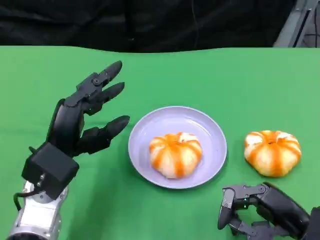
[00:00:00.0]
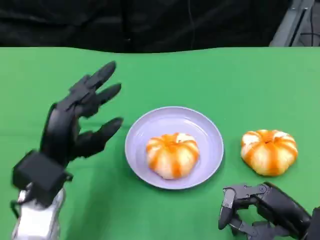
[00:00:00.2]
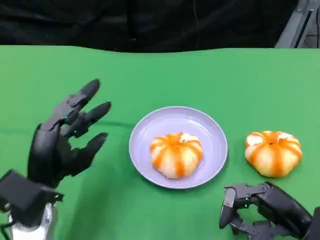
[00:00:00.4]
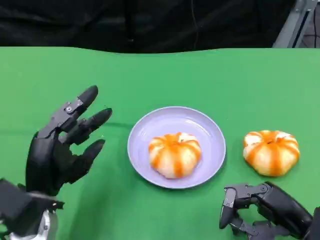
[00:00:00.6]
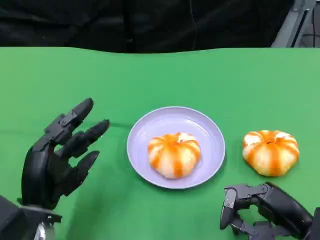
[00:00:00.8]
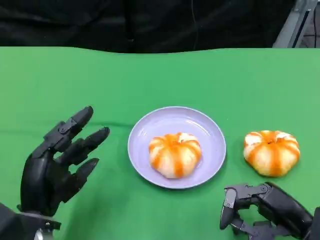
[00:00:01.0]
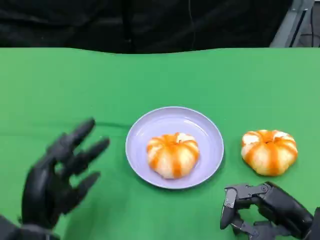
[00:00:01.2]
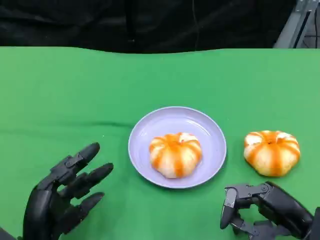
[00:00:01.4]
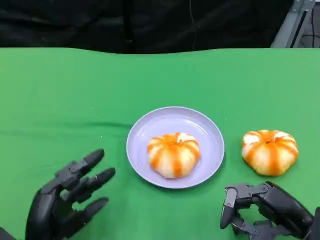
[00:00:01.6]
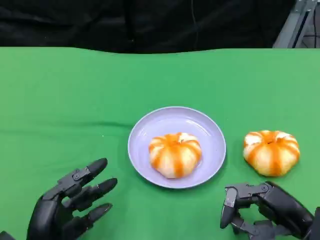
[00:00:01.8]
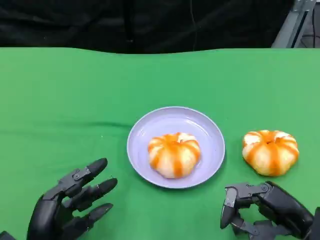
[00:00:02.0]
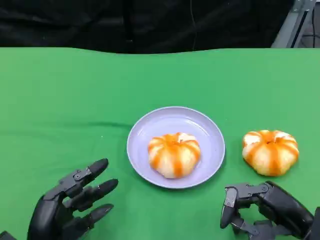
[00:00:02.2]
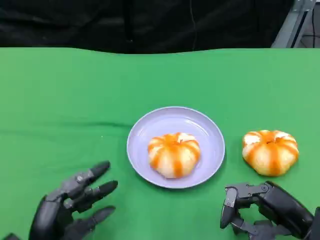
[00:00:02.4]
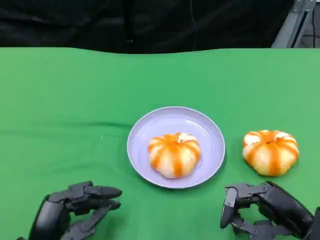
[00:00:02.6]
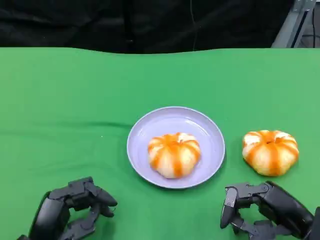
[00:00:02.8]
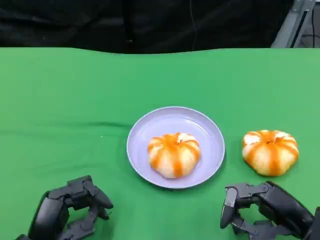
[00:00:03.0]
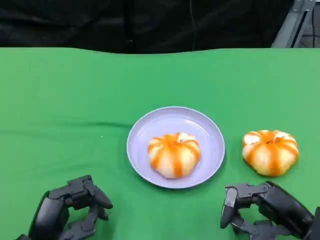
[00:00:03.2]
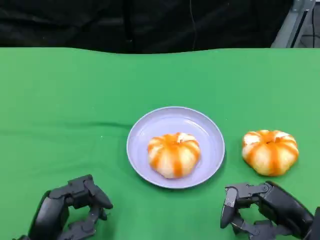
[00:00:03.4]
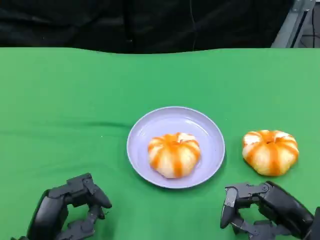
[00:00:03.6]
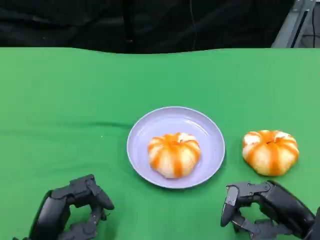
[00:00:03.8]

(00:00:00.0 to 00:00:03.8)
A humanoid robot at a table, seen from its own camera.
Task of the whole recording: Grasp the bread from the table and place it into the plate.
00:00:00.0 - 00:00:01.2: The left hand heads backward and downward, covering approximately 10 cm.
00:00:01.2 - 00:00:02.6: The hands stay close to where they were, moving slightly.
00:00:02.6 - 00:00:03.8: Neither hand changes place.

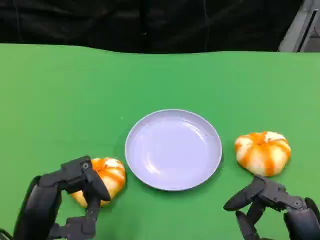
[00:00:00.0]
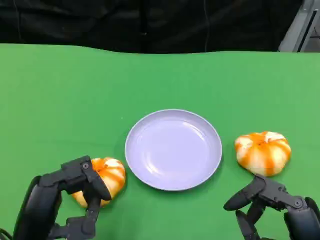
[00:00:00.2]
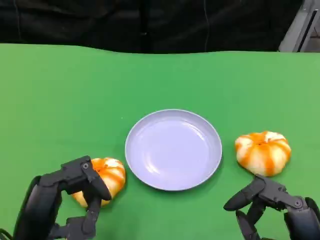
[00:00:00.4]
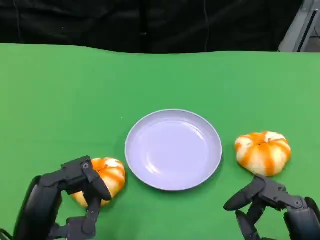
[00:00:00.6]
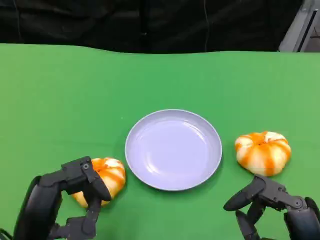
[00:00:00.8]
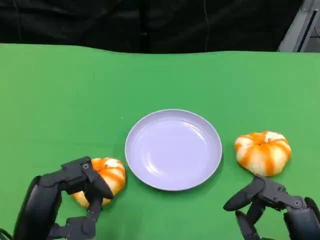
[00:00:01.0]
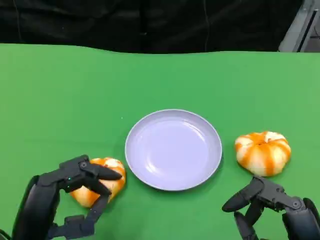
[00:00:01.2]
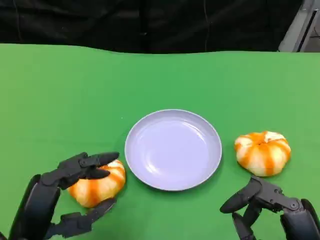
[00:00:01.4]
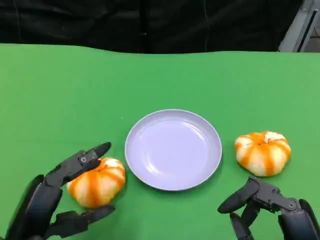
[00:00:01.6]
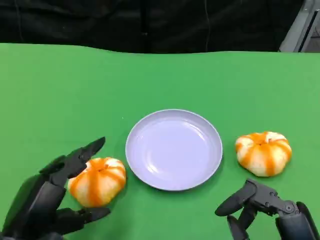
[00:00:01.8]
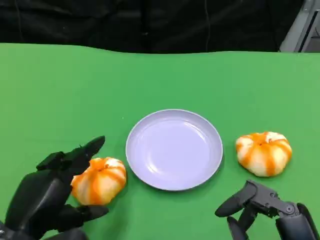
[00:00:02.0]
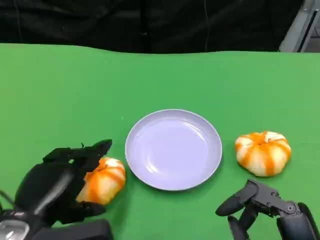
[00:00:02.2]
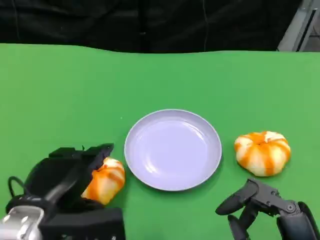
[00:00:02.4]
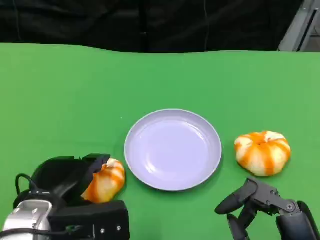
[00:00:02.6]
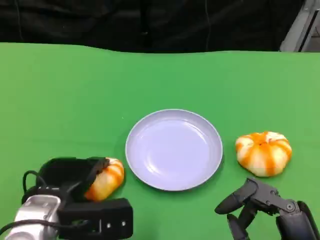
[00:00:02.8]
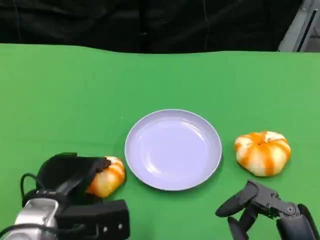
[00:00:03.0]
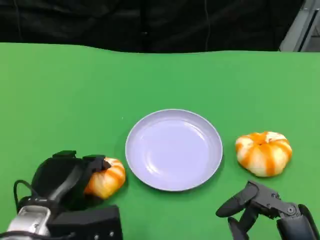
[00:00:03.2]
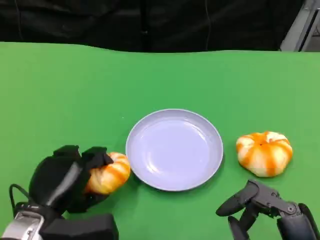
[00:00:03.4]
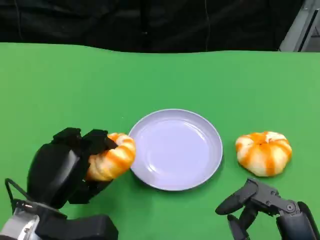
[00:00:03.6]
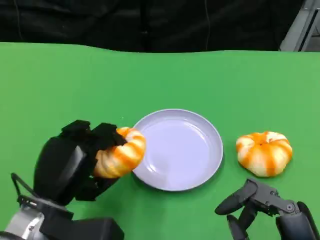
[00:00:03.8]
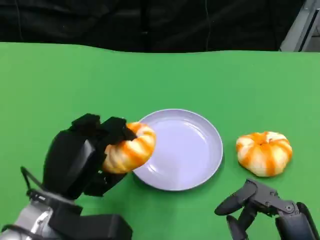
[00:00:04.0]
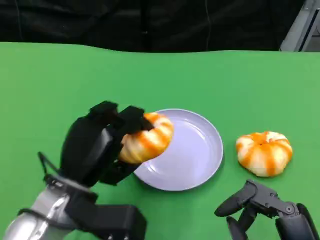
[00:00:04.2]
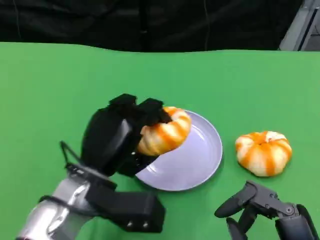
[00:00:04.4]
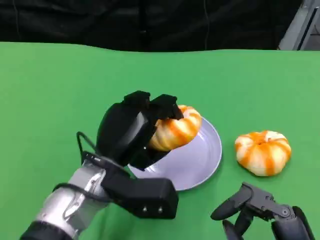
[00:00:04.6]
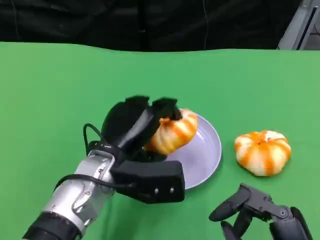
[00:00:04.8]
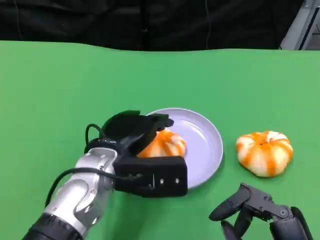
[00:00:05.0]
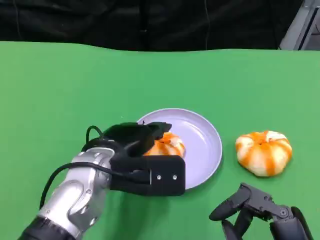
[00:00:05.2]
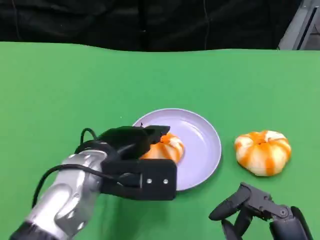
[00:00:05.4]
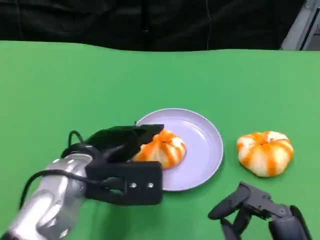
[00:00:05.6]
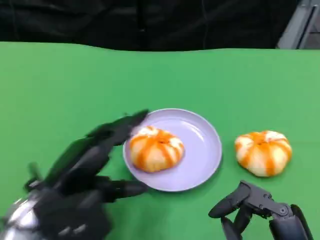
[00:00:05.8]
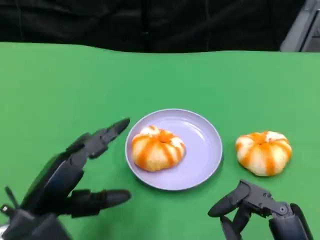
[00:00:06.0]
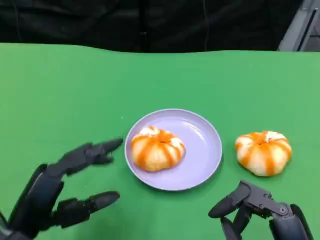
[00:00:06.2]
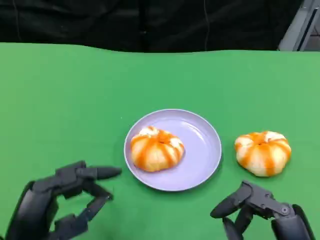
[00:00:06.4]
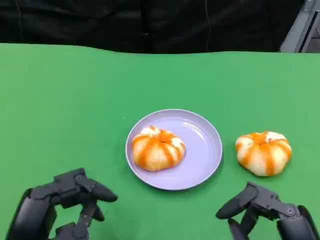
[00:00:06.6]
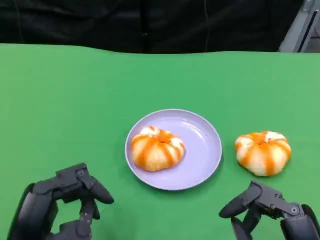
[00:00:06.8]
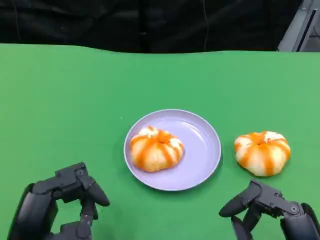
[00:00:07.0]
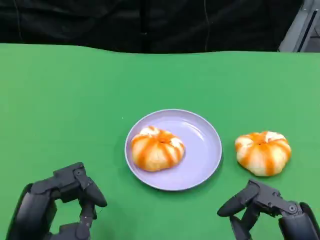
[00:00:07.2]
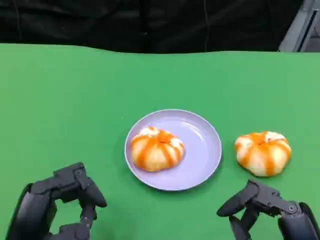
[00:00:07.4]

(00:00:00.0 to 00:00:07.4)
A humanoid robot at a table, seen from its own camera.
Task of the whole recording: Grasp the bread from the table and place it into the plate.
00:00:00.0 - 00:00:01.4: There are only small adjustments of the hands.
00:00:01.4 - 00:00:03.0: The left hand is displaced forward by about 10 cm.
00:00:03.0 - 00:00:04.4: The left hand heads to the right, covering roughly 5 cm.
00:00:04.4 - 00:00:06.0: The left hand travels to the left and backward by about 10 cm.

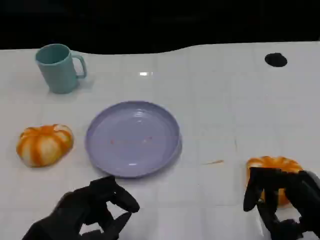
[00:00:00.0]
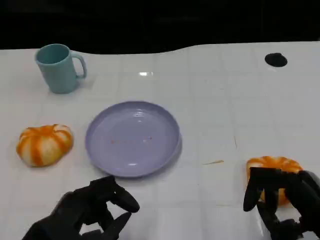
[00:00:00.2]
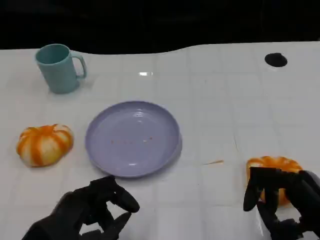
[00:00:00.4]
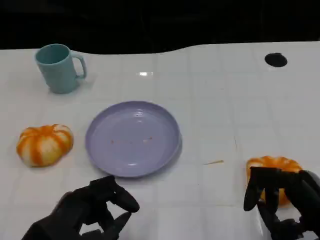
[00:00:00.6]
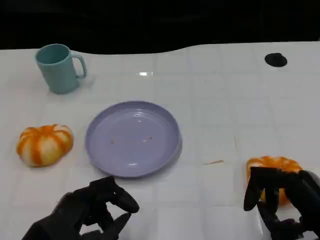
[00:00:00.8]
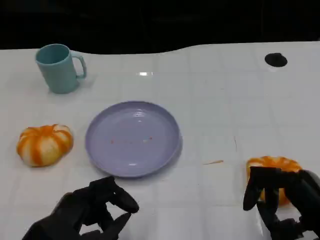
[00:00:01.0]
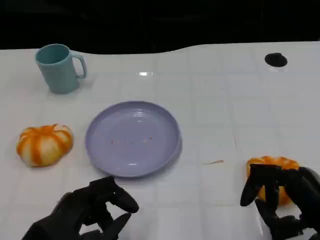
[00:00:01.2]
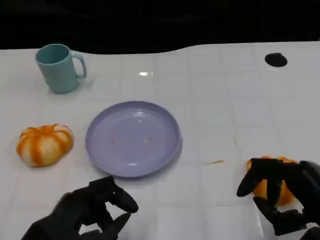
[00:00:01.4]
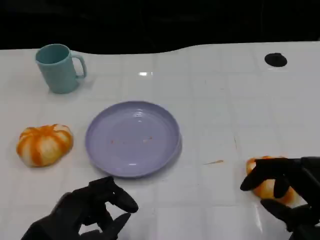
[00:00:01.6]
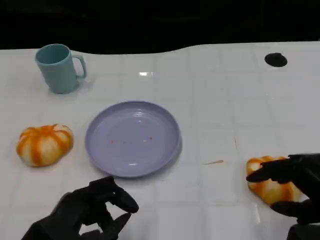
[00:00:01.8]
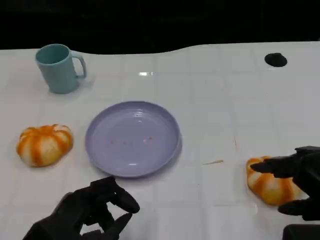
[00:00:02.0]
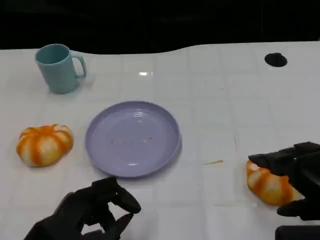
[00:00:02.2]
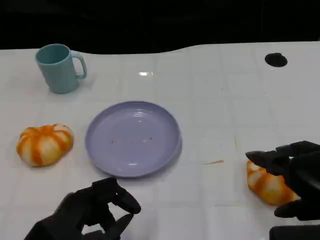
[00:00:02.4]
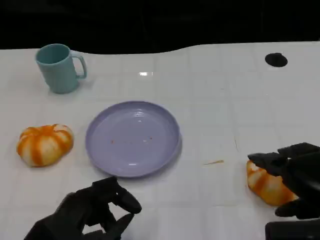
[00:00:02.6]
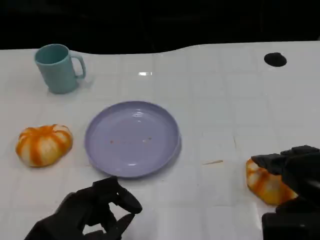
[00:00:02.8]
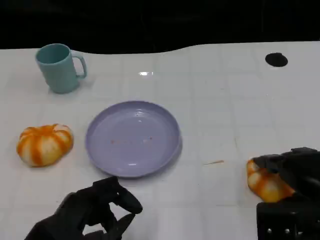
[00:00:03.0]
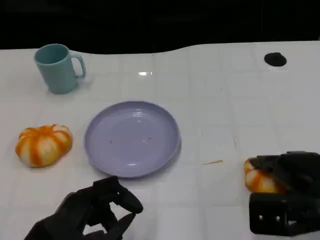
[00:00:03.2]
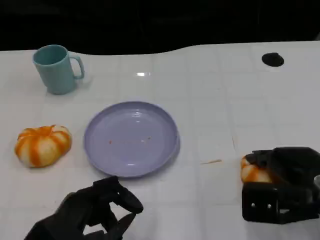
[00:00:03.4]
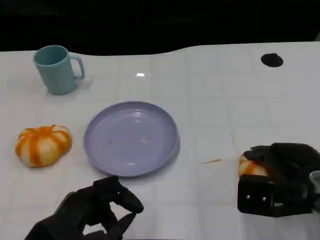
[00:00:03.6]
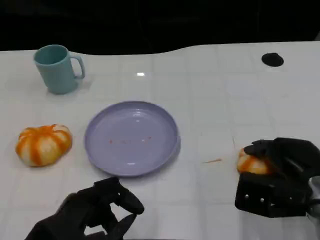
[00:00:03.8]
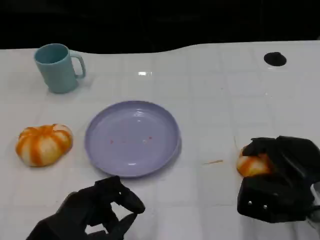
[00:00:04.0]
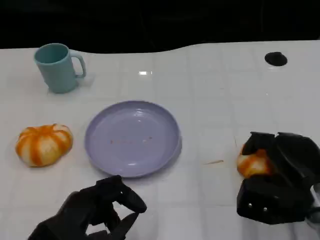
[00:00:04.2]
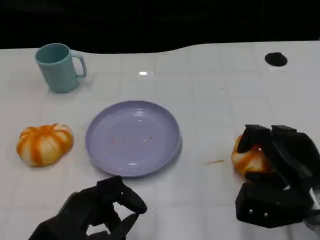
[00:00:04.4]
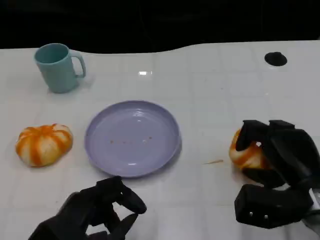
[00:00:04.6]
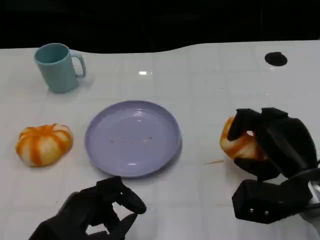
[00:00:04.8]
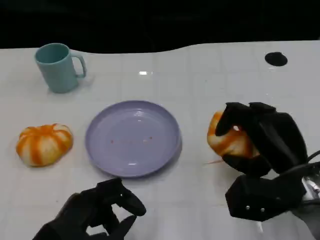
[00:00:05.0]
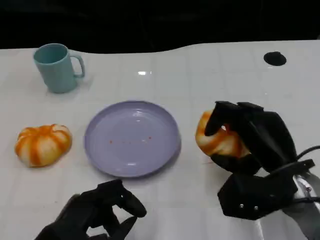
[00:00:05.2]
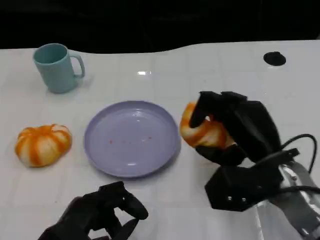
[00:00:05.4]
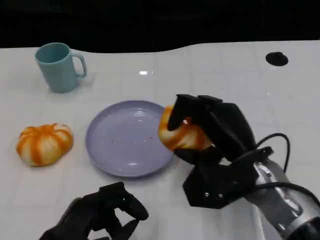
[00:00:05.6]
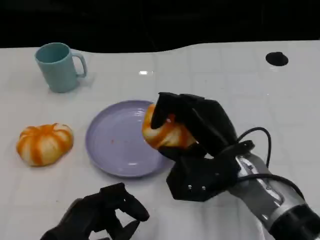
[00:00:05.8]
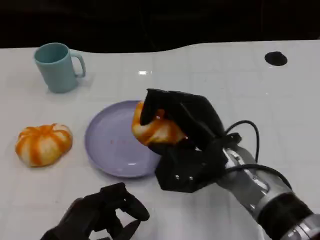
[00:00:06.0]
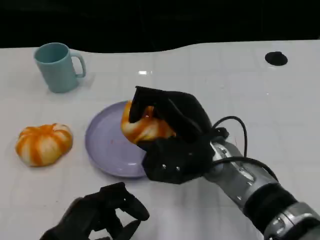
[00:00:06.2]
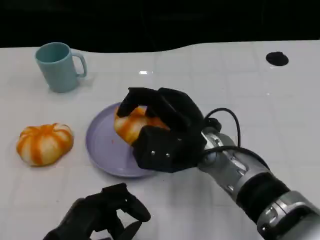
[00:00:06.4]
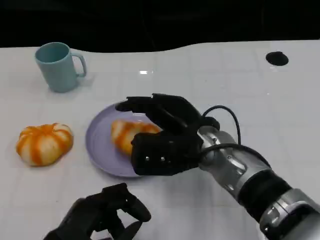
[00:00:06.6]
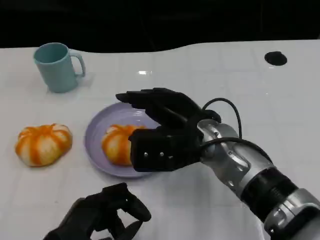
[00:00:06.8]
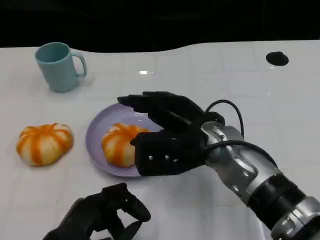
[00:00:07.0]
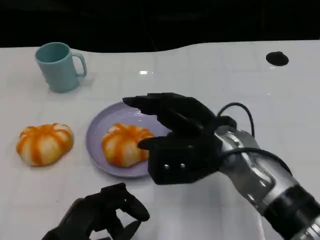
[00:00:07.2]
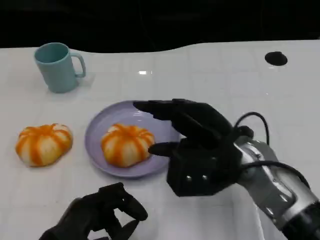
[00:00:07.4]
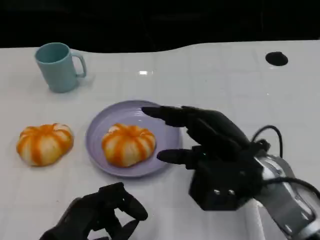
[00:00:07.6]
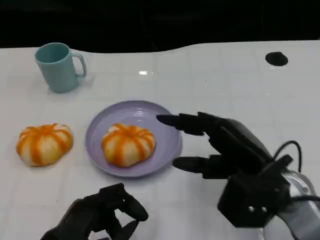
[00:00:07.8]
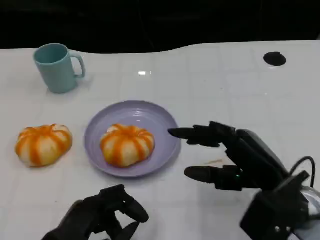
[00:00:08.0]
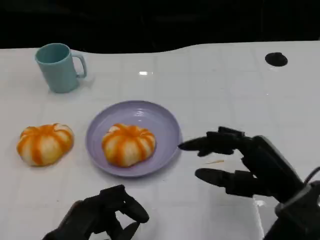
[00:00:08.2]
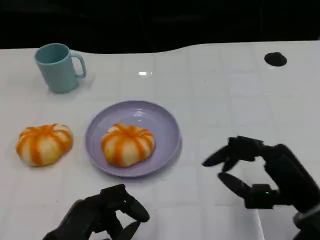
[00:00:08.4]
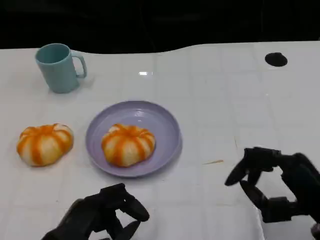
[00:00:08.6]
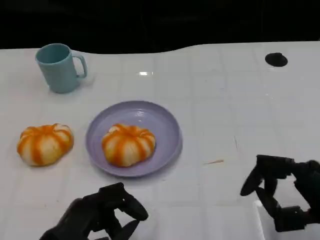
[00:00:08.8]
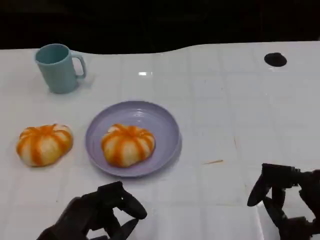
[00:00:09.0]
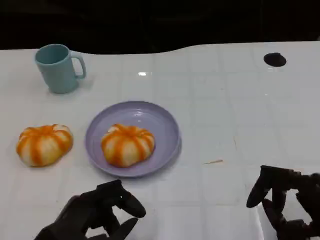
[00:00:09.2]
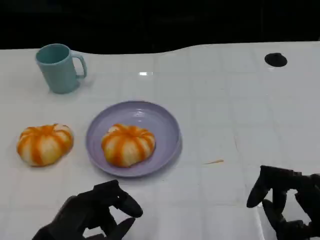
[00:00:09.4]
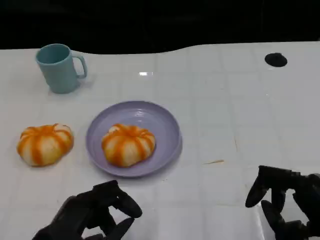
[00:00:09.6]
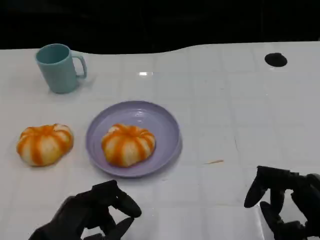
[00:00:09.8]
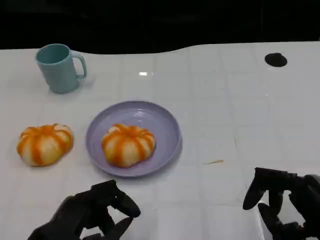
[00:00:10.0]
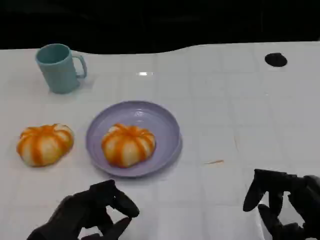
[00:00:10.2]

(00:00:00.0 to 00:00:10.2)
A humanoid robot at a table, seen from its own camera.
Task of the whole recording: Grasp the bread from the table and place it into the plate.
00:00:00.0 - 00:00:01.4: The hands stay close to where they were, moving slightly.
00:00:03.0 - 00:00:04.4: The right hand shifts by roughly 5 cm.
00:00:04.4 - 00:00:05.8: The right hand is displaced to the left by roughly 10 cm.
00:00:07.2 - 00:00:08.8: The right hand goes approximately 20 cm to the right and backward.
00:00:08.8 - 00:00:10.2: The hands make only small movements.
